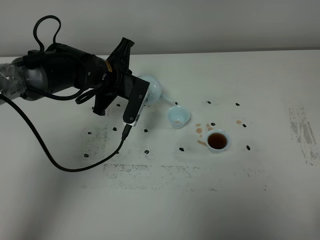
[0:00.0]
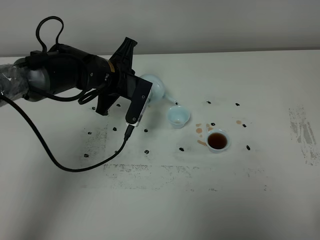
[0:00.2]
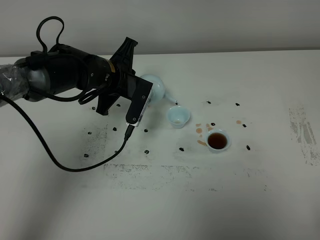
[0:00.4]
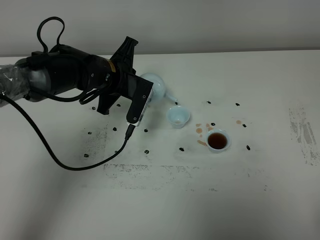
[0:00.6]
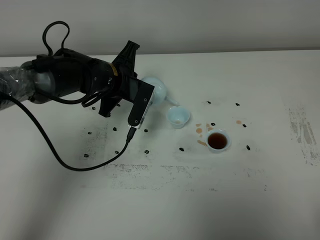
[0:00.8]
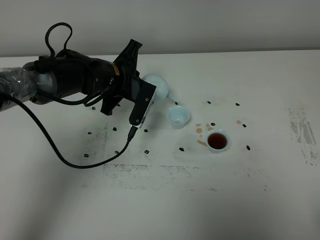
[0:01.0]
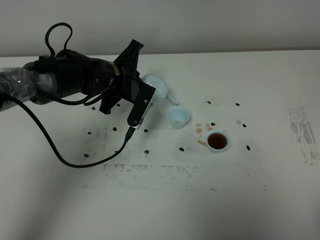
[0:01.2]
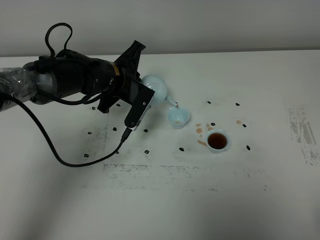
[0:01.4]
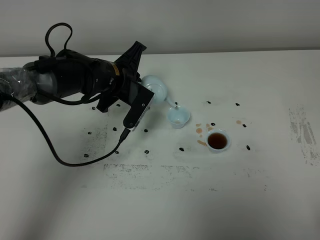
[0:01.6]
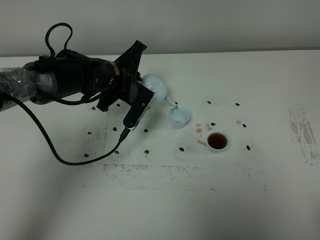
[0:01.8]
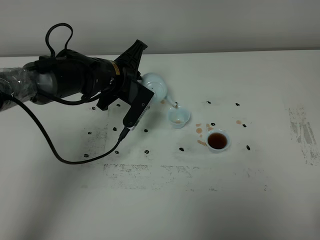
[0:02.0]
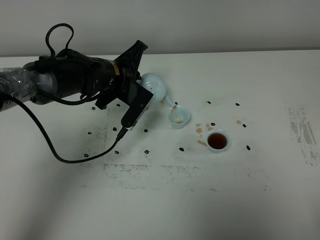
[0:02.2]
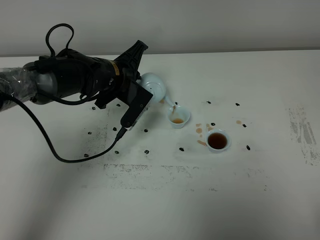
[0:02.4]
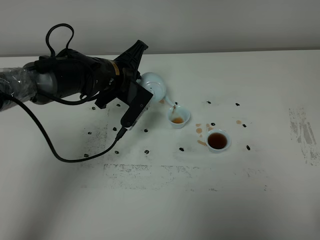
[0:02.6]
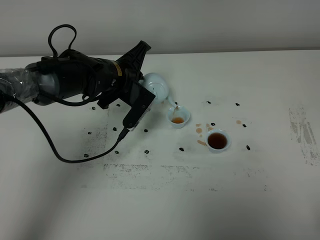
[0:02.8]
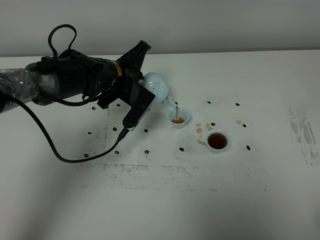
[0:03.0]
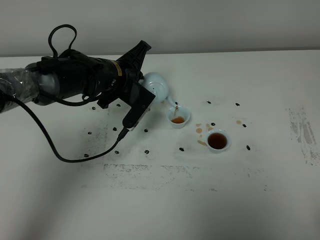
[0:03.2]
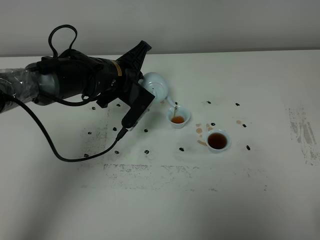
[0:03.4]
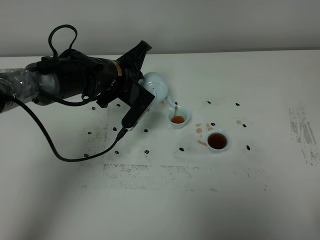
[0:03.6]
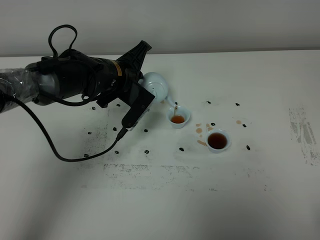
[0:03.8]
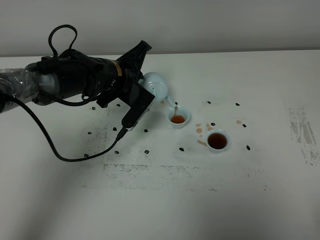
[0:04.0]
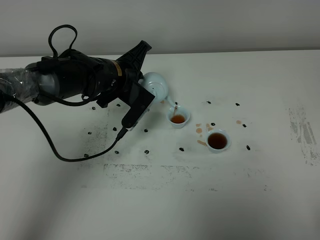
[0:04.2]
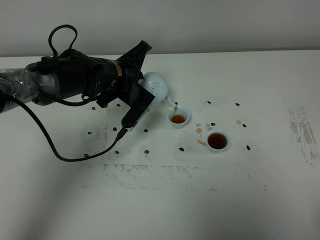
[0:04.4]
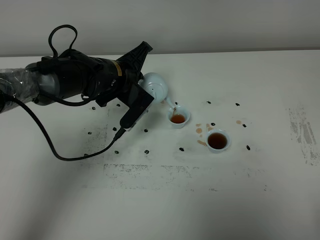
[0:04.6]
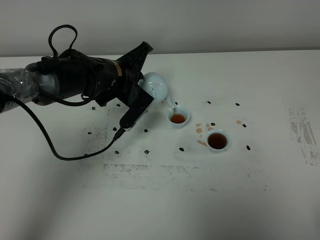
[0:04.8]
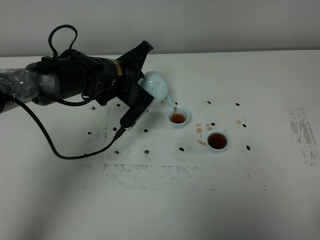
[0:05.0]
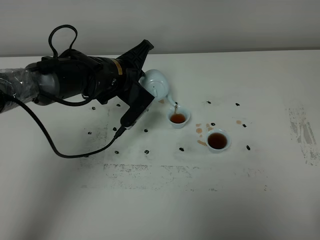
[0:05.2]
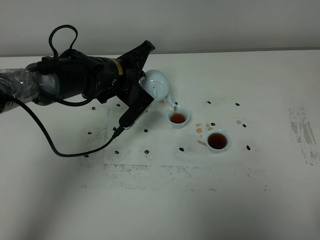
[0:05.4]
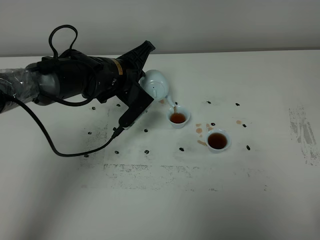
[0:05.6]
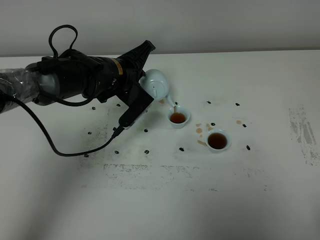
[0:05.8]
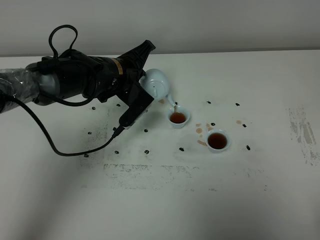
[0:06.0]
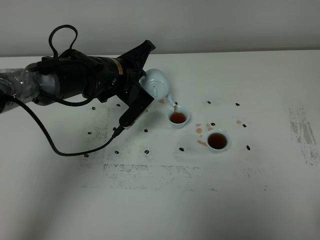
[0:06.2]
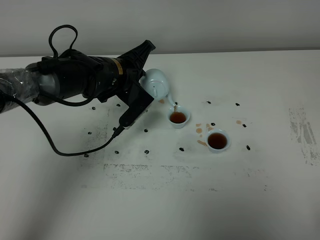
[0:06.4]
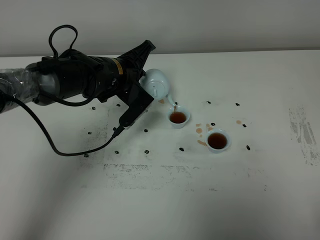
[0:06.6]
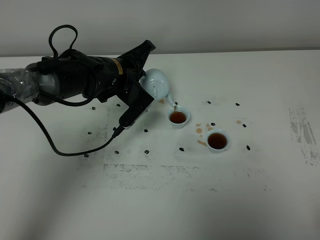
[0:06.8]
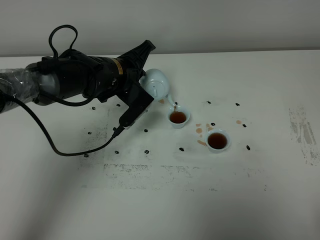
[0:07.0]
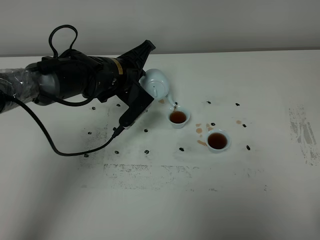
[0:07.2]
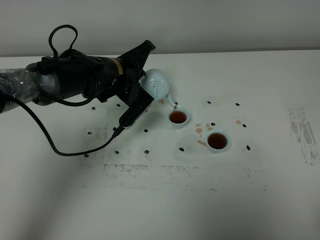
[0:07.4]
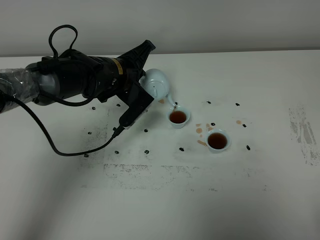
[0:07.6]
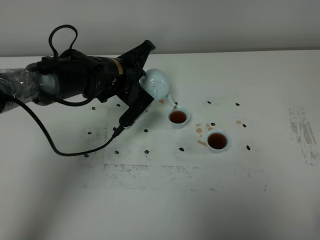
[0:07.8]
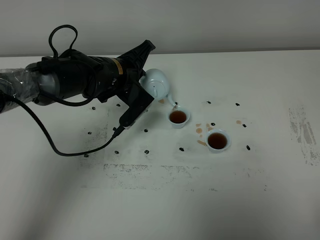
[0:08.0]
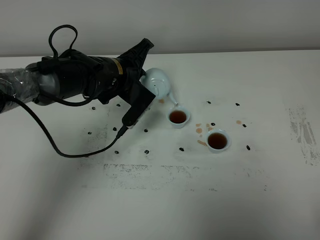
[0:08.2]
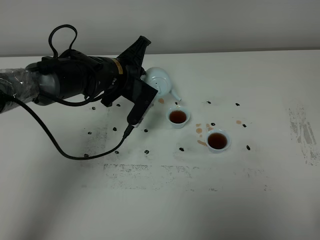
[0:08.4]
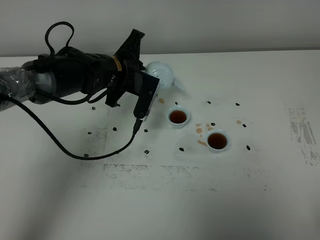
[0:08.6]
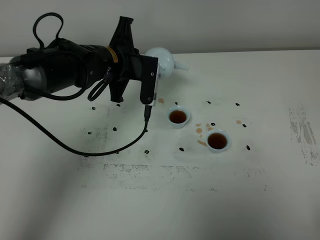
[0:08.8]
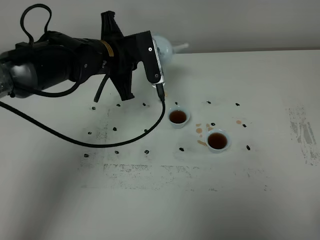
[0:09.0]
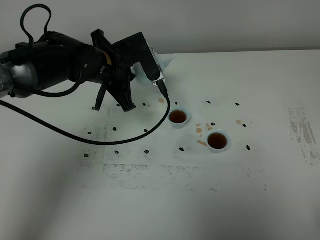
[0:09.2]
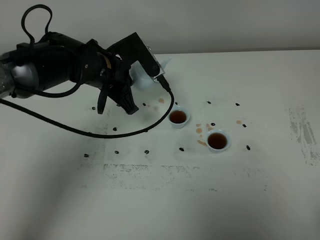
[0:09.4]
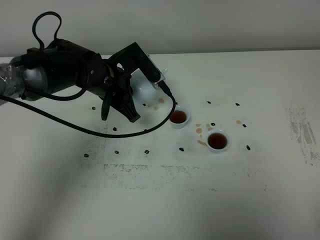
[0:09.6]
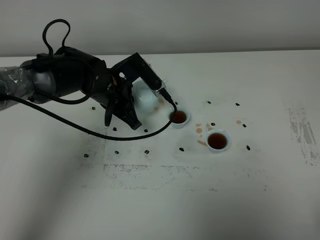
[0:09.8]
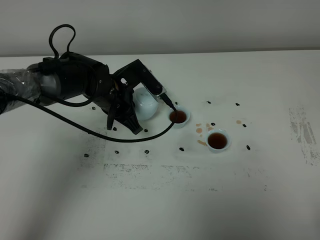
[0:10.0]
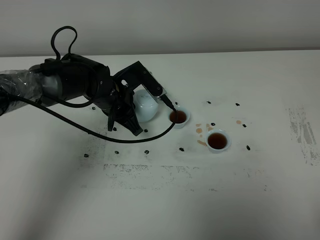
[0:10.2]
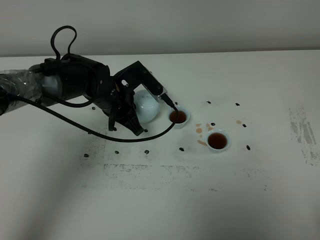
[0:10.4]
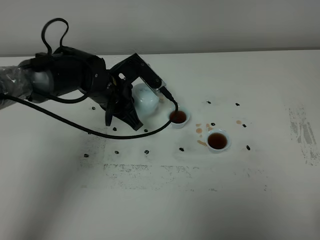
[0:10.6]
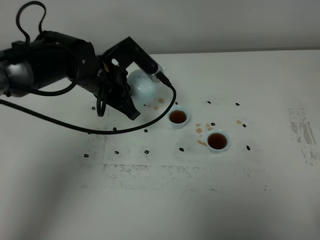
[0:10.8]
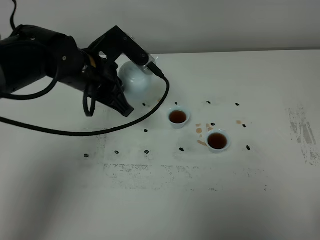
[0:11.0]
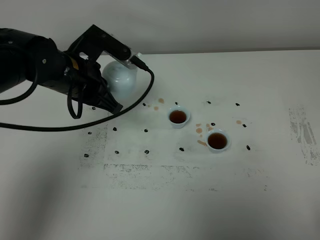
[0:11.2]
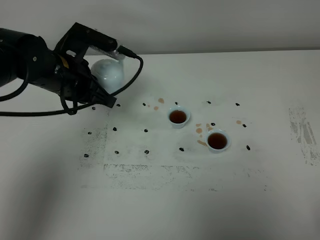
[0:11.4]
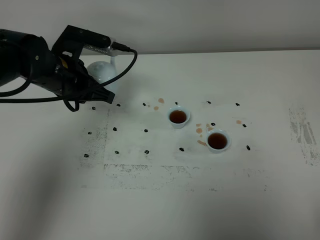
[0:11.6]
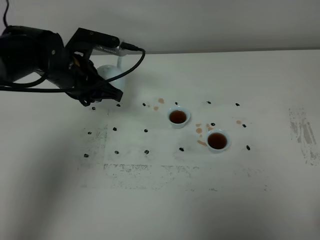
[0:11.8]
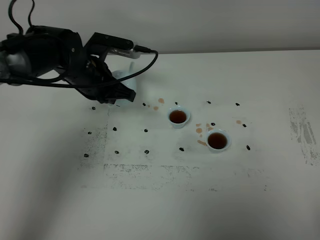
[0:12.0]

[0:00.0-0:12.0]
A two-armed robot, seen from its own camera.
Task of the whole recording: grasp the blue porcelain teapot and pour the tea into the two blue porcelain teacups one by one, put the blue porcelain teapot back in its original place.
Step, 0.0 to 8.6 s: Pour tea into the teacup with the left gripper.
0.0 to 3.0 s: The grippers move only a little.
3.0 to 4.4 s: Both grippers stay put.
4.4 to 6.0 s: The grippers stay close to where they were, moving slightly.
6.0 to 7.6 s: Both grippers stay put.
7.6 to 9.0 s: The left gripper changes place by approximately 5 cm.
9.0 to 10.4 s: The left gripper moves downward, some 10 cm.

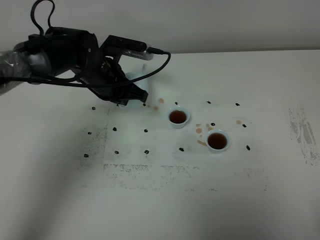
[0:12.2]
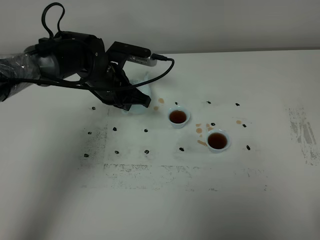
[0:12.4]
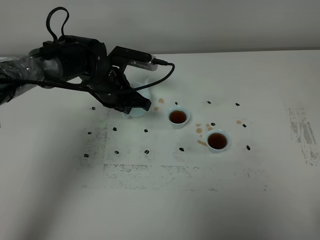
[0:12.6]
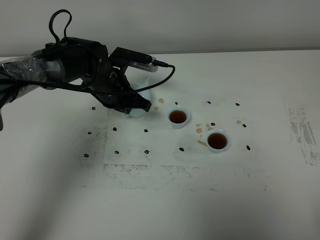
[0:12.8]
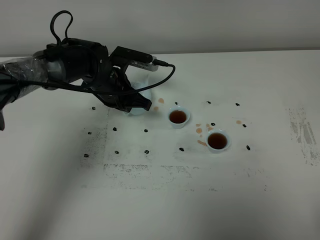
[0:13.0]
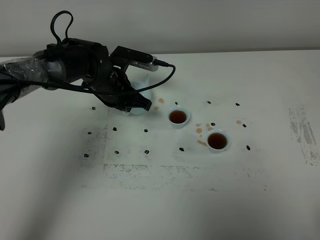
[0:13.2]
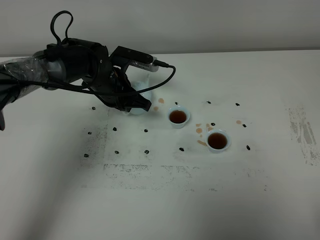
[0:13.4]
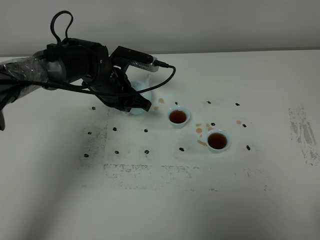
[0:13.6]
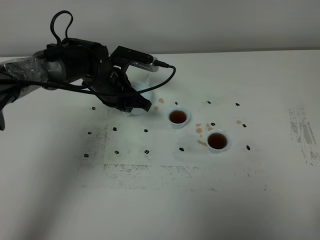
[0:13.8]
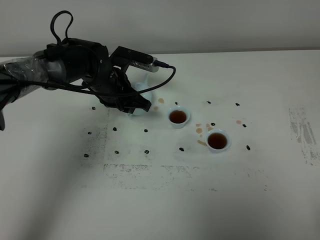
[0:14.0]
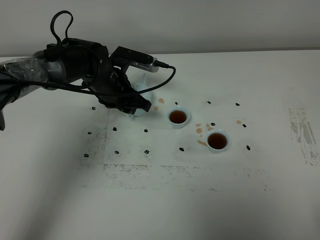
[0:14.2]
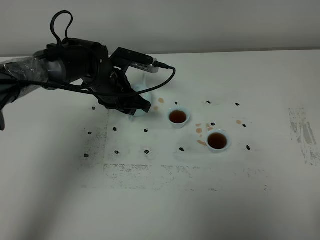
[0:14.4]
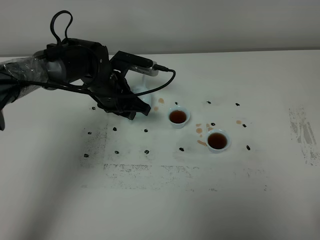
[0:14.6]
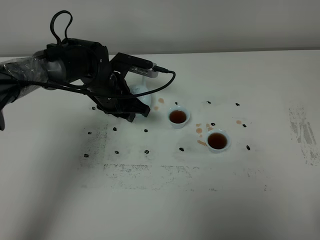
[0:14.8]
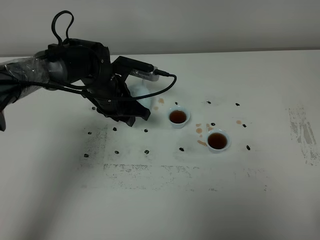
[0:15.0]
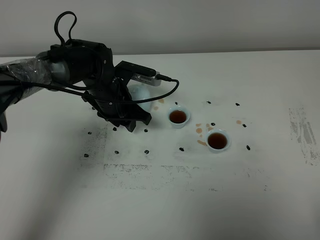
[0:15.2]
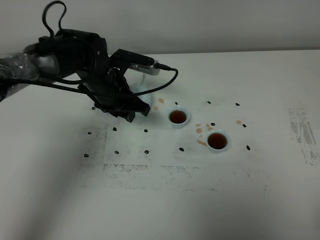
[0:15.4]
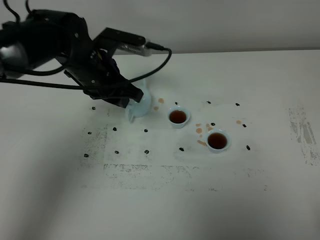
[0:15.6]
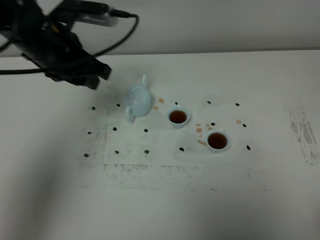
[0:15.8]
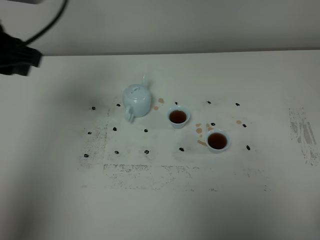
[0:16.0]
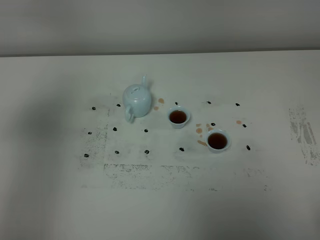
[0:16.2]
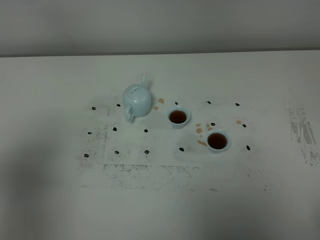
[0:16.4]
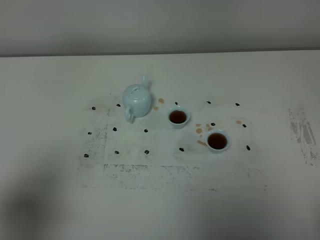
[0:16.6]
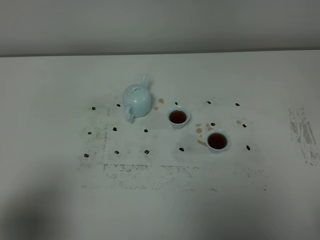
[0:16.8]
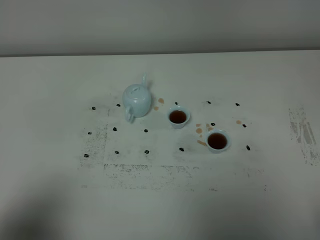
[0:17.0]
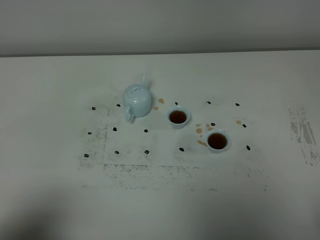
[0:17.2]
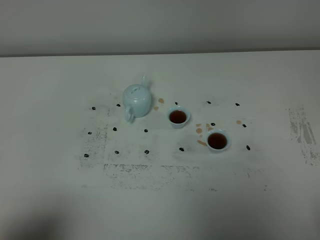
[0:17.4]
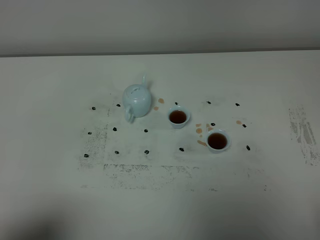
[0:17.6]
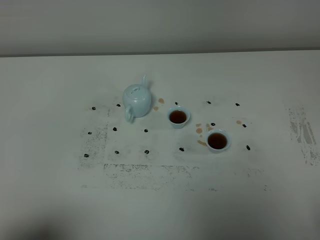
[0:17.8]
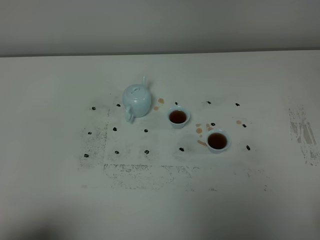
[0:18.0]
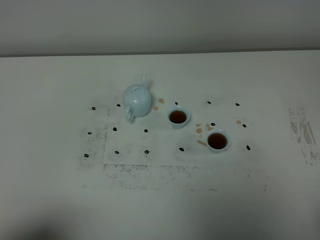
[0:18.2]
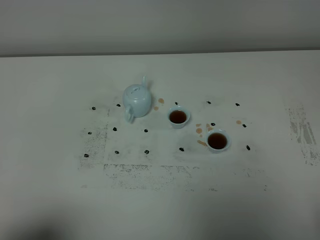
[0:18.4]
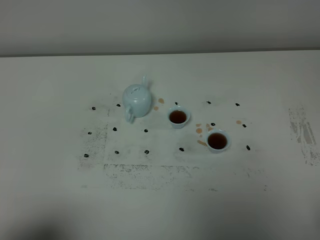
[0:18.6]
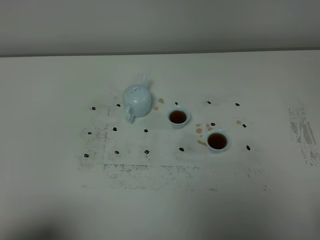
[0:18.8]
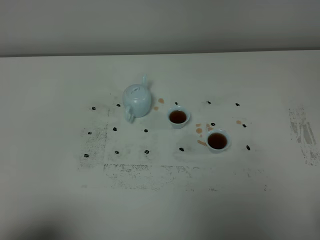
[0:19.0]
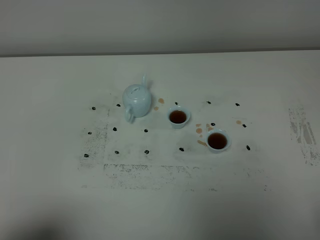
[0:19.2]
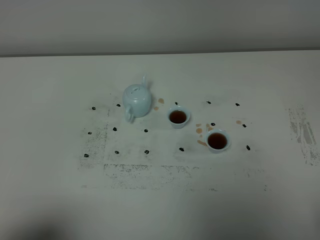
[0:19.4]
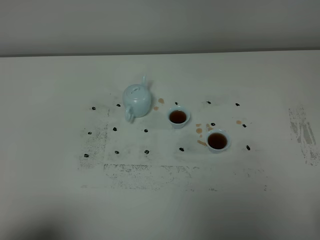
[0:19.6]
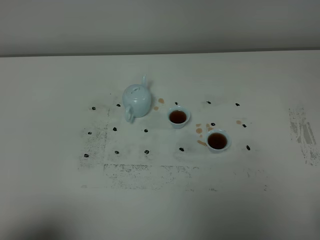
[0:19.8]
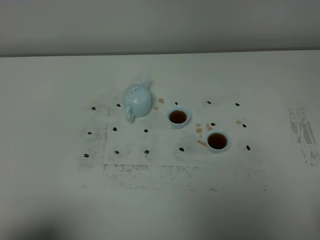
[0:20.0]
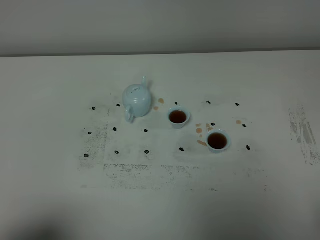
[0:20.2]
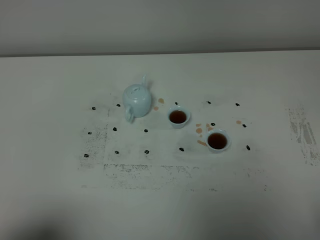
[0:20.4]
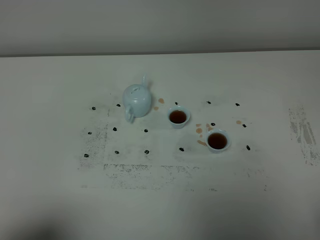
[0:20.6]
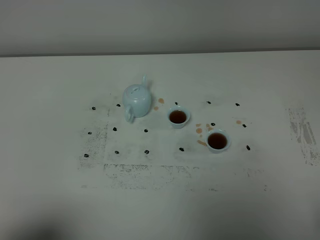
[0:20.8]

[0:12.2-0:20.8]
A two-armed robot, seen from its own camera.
Task of the whole recording: grasp the blue porcelain teapot and pour the tea into the two blue porcelain teacups one by one, put the blue porcelain teapot back in its original place.
12.2 to 13.6 s: The grippers make only small movements.
13.6 to 15.0 s: The left gripper opens up.
15.0 to 16.6 s: The left gripper moves backward, to the left and upward, about 40 cm.
16.6 to 18.0 s: The left gripper travels backward and downward by approximately 10 cm.
19.4 to 20.8 s: The two grippers keep their place.

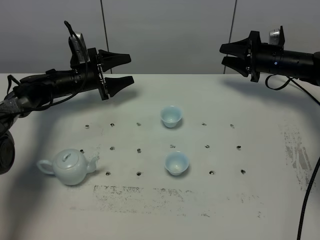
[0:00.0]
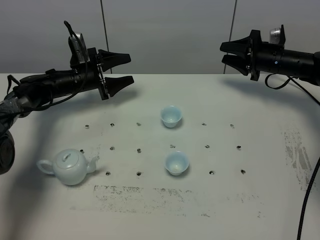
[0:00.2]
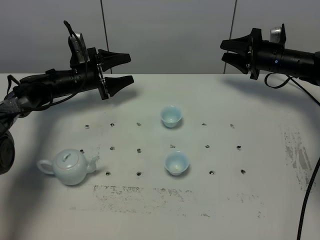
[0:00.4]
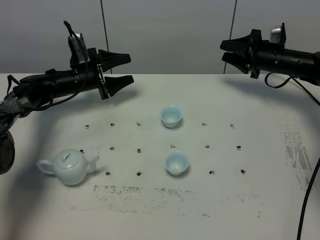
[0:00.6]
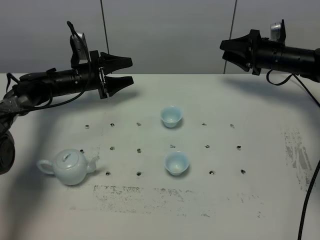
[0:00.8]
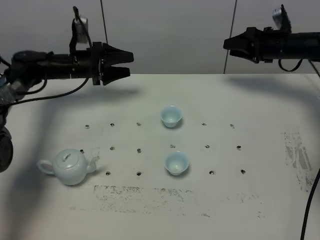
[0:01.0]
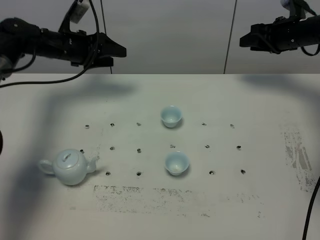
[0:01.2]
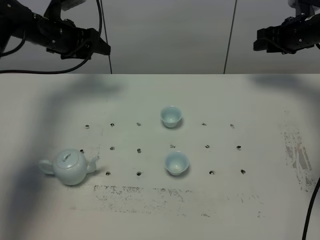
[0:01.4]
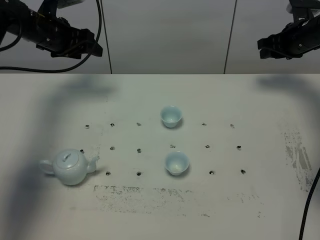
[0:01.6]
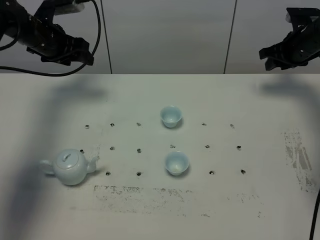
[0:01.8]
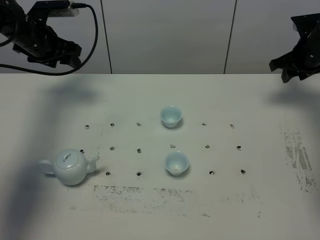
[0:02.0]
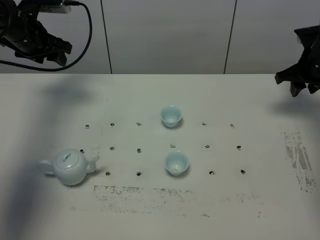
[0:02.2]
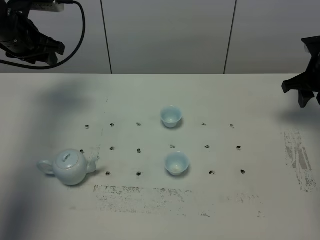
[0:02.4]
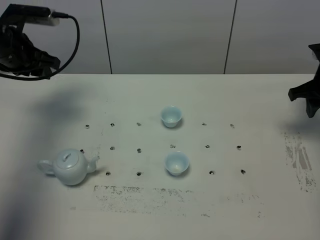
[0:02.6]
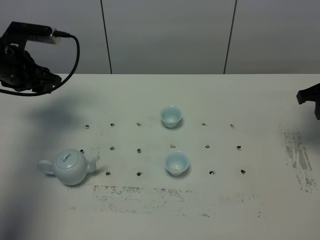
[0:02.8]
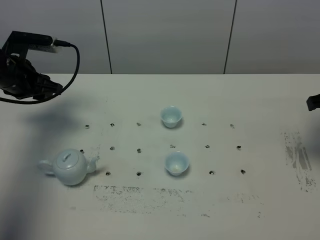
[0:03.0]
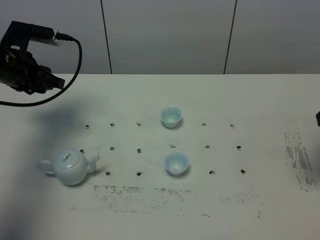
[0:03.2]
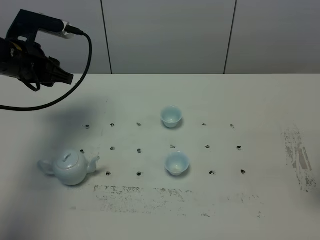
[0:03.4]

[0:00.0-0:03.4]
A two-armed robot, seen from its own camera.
Task of the whole recording: grasp the blue porcelain teapot and pour the tea into the two blue porcelain teacups one by one, put the blue porcelain teapot back in its original place.
0.0 to 1.6 s: The right gripper shifts about 5 cm upward. Meanwhile the left gripper goes approximately 15 cm upward.
1.6 to 3.4 s: The left gripper goes approximately 15 cm backward, and closes, while the right gripper goes roughly 35 cm backward.
